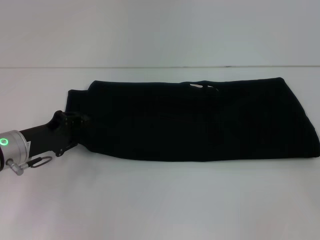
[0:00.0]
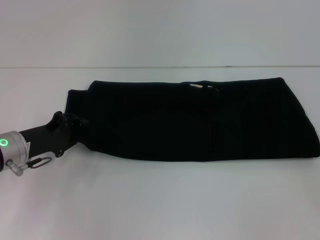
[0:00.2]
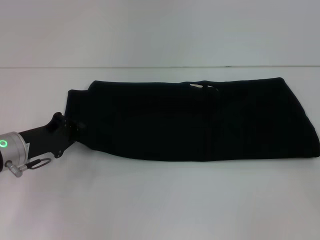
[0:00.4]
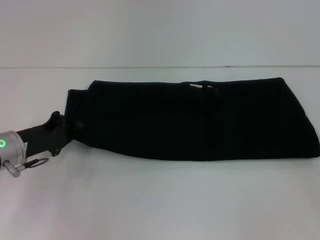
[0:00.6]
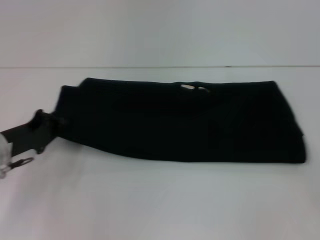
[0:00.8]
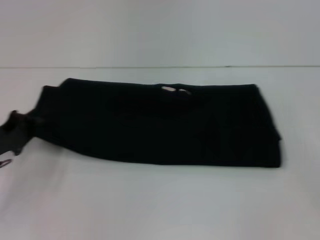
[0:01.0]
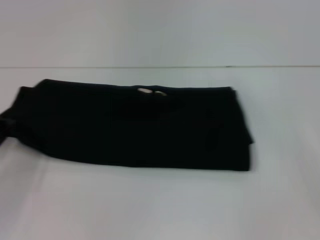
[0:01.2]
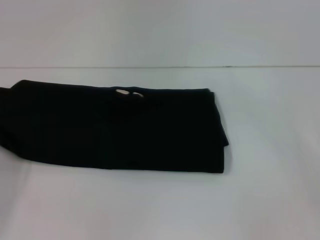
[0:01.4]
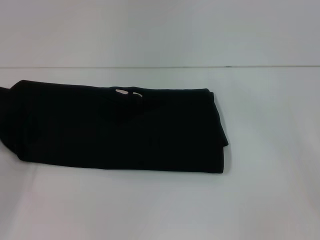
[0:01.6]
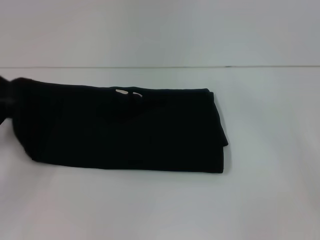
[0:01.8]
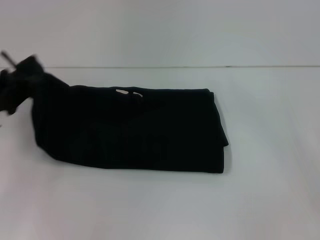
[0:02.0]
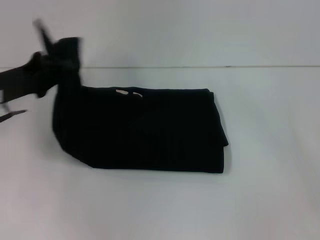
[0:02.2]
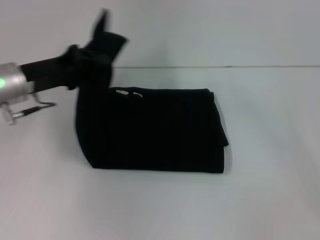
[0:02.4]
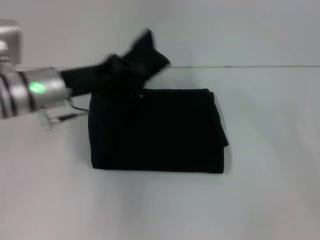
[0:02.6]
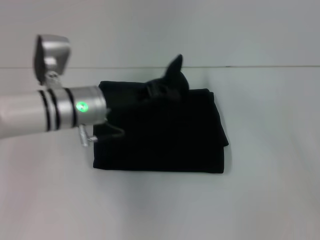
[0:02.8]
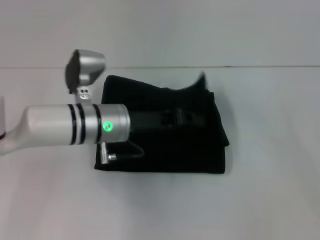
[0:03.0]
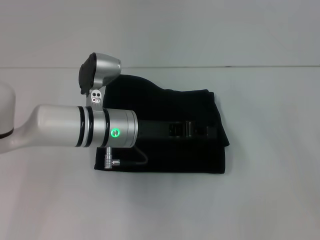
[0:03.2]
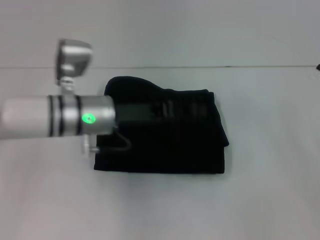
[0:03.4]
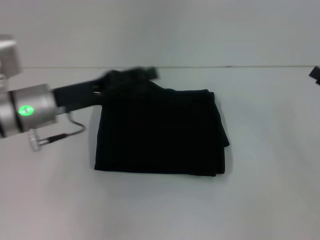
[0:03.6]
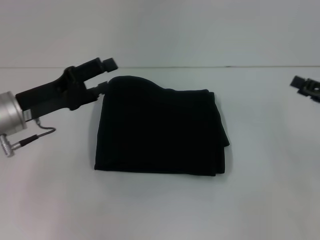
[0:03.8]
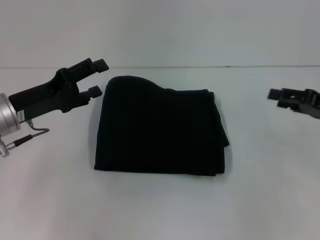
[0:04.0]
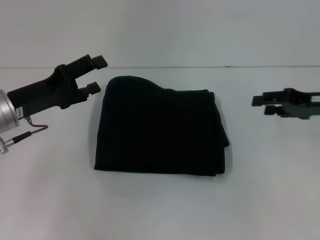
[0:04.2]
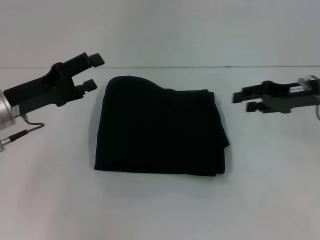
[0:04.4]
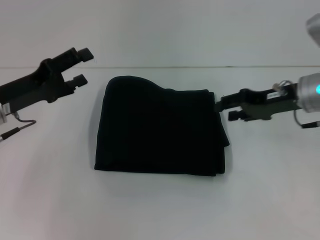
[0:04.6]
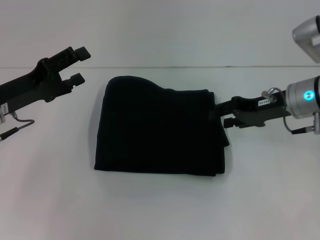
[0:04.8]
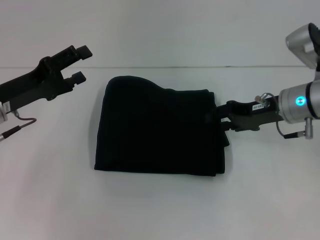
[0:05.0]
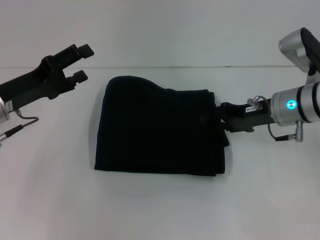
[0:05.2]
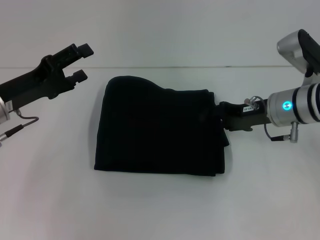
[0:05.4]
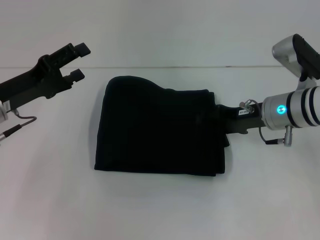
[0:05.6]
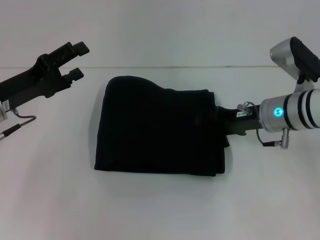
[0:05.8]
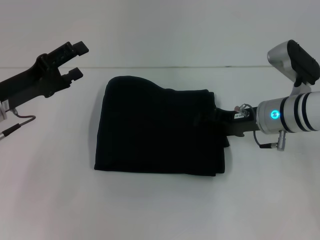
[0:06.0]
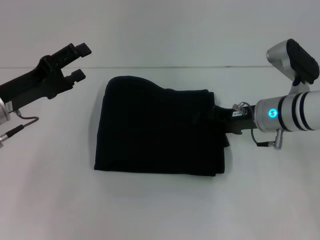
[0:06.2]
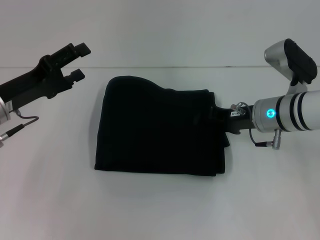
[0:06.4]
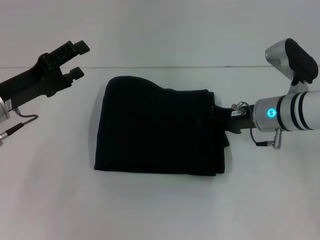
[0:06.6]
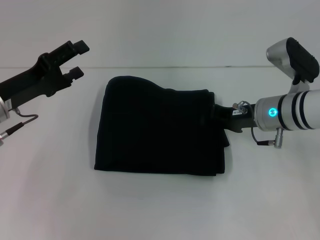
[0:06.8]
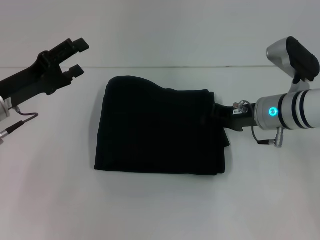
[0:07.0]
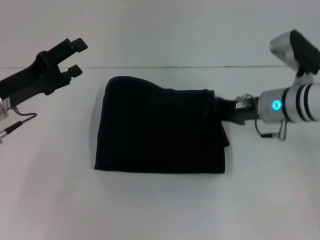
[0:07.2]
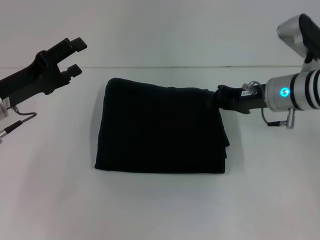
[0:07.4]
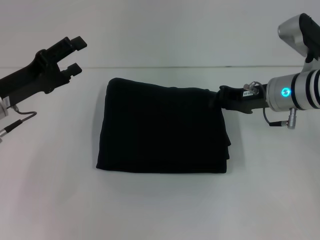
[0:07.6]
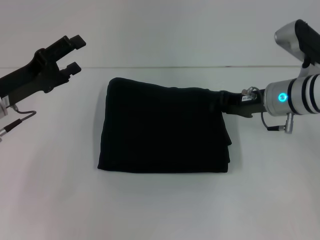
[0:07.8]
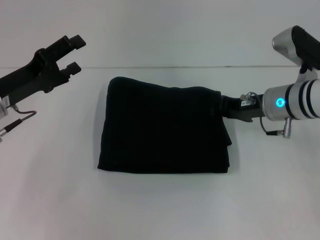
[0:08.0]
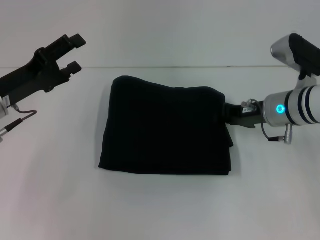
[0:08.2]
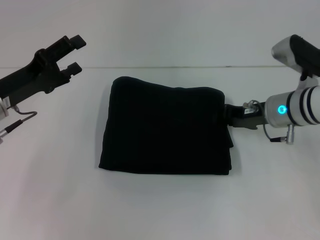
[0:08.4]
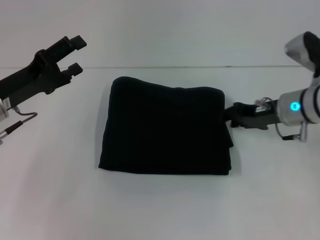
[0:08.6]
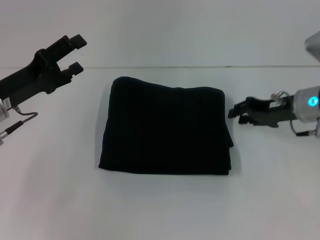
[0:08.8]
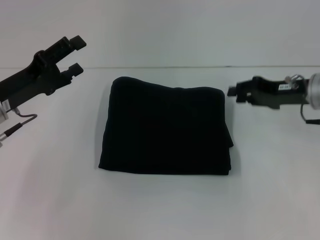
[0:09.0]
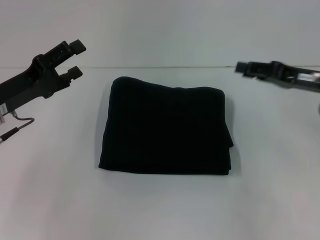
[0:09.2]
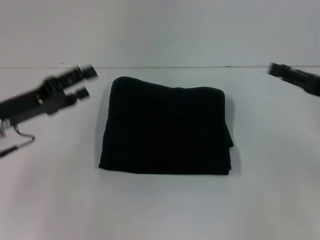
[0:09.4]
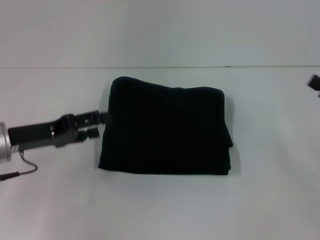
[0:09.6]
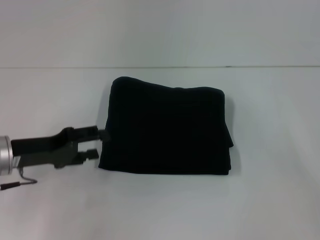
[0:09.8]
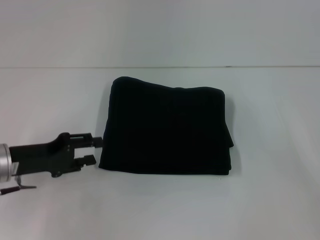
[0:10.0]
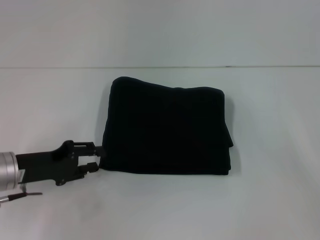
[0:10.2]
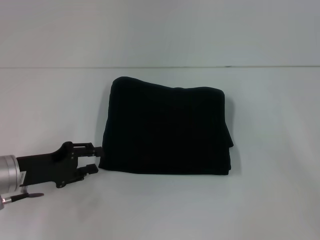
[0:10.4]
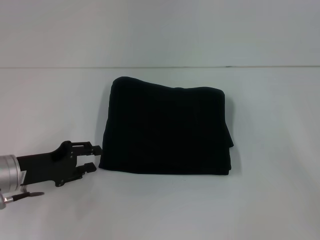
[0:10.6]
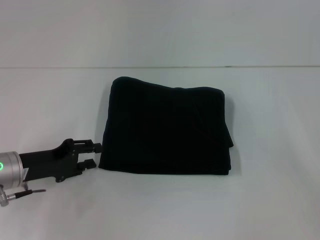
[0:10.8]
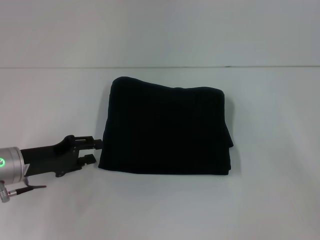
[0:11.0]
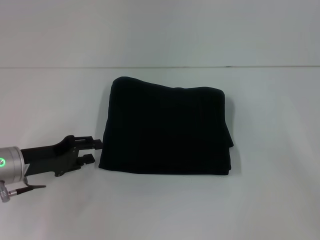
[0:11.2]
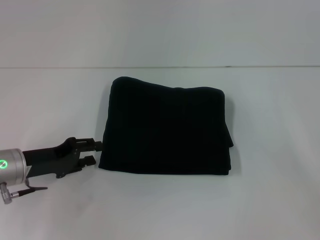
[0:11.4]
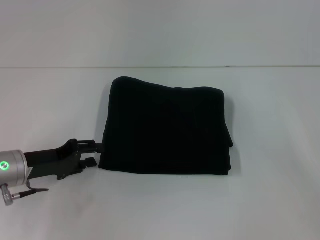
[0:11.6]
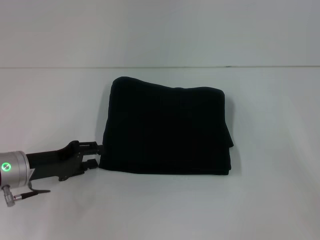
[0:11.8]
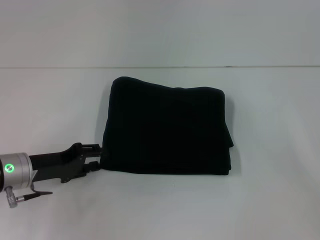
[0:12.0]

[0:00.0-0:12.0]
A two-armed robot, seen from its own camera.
Step, 0:00.0 to 0:03.2: Fold the clothes with your left hand.
0:00.0 to 0:01.6: The left gripper goes roughly 10 cm to the left, and closes up.
0:01.6 to 0:03.0: The left gripper shifts approximately 25 cm to the right.
0:03.0 to 0:04.4: The right gripper heads to the left and forward, covering about 15 cm, while the left gripper travels to the left by roughly 15 cm, and opens up.
0:04.4 to 0:06.0: The right gripper moves to the left and downward, approximately 10 cm.
0:06.0 to 0:07.6: The right gripper closes.
0:07.6 to 0:09.0: The right gripper goes approximately 5 cm to the right, and opens up.
0:09.0 to 0:10.4: The left gripper heads downward, covering approximately 5 cm, and closes up. The right gripper heads backward and to the right, covering about 15 cm, and opens up.
0:10.4 to 0:12.0: The grippers make only small movements.

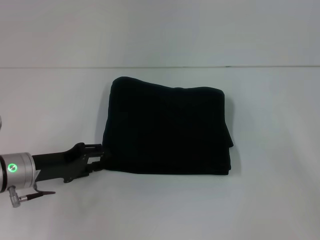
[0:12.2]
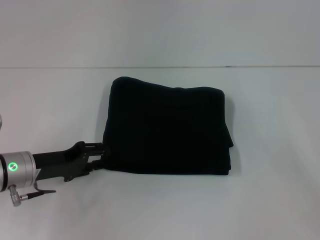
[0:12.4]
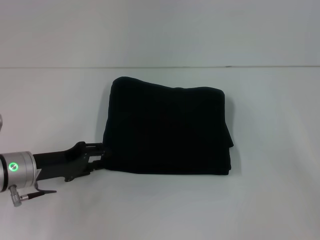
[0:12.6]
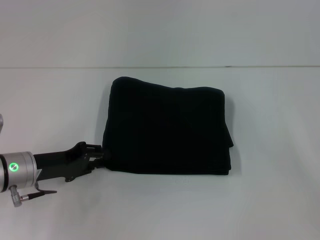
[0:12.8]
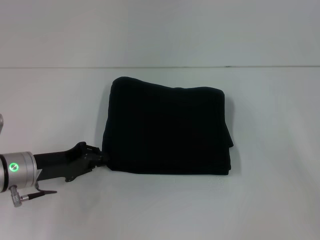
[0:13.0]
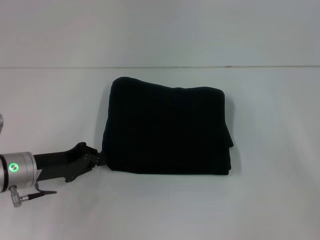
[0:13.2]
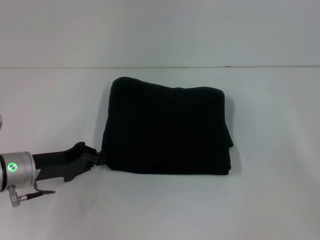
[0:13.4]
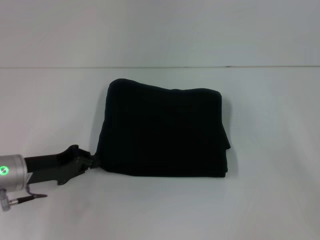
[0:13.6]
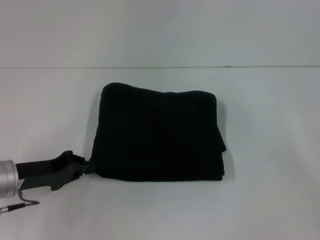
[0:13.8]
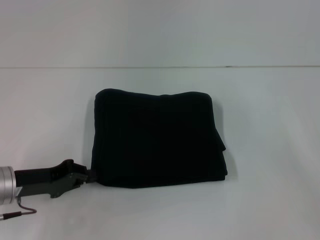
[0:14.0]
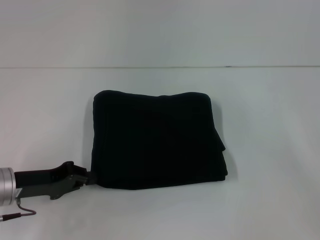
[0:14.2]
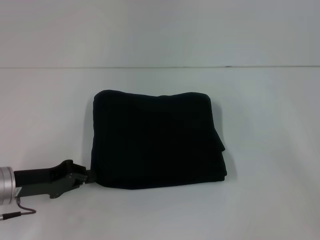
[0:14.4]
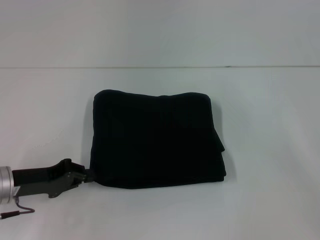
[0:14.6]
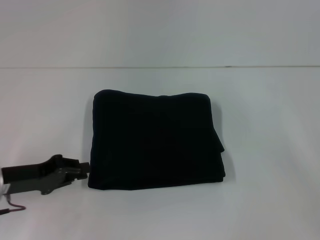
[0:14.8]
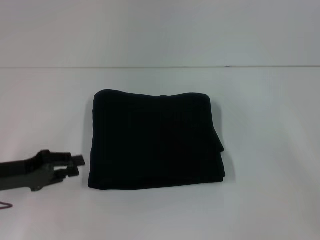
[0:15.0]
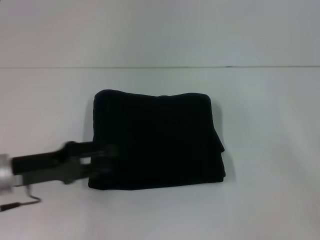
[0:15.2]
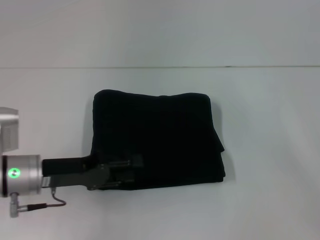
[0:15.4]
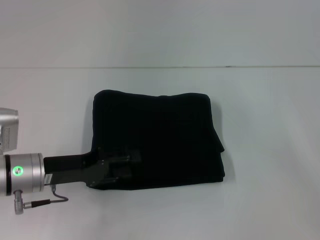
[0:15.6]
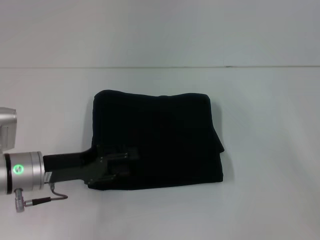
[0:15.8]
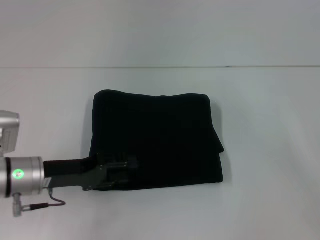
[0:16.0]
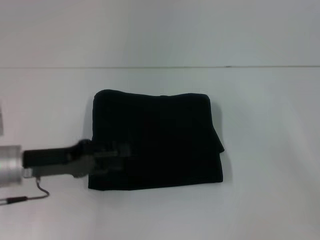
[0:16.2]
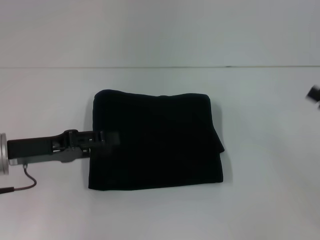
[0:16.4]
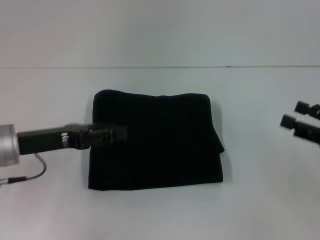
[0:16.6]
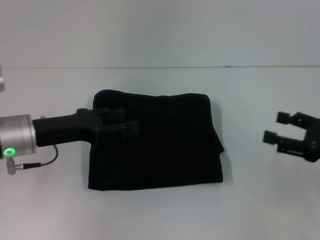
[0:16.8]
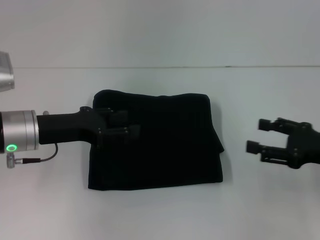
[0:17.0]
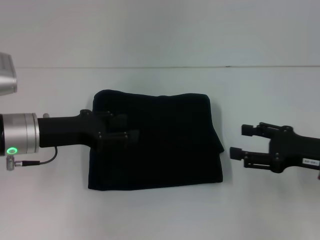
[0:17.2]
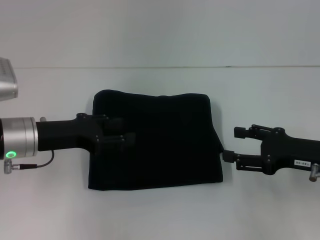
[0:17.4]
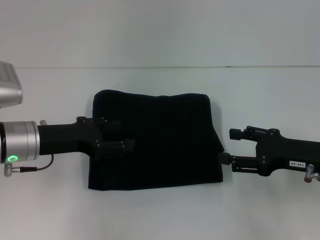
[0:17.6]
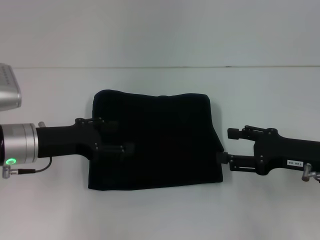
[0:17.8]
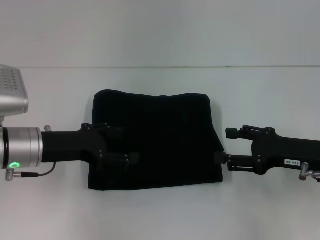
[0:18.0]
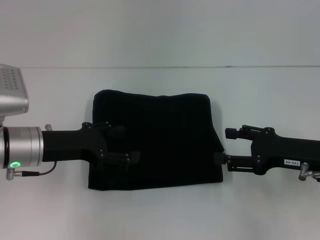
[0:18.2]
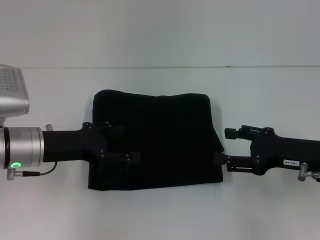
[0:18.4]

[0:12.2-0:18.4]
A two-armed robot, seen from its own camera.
0:12.2 to 0:13.8: The left gripper closes its fingers.
0:13.8 to 0:15.4: The left gripper opens.
0:16.8 to 0:18.4: The right gripper travels to the left by roughly 5 cm.

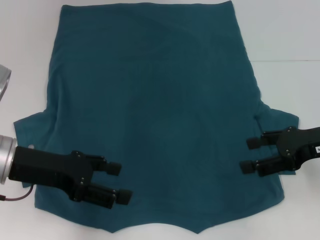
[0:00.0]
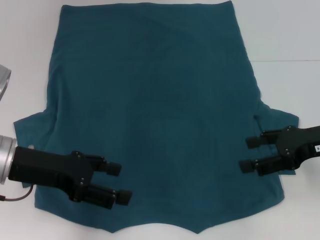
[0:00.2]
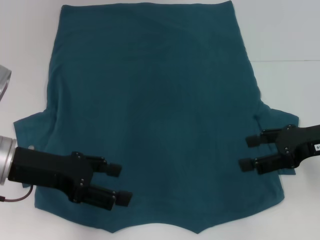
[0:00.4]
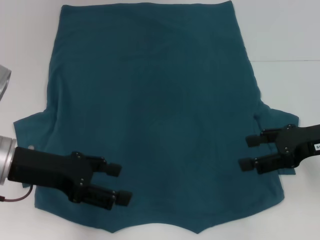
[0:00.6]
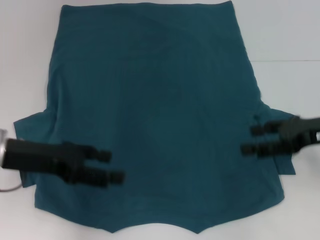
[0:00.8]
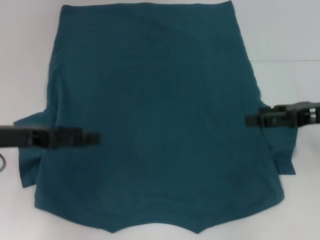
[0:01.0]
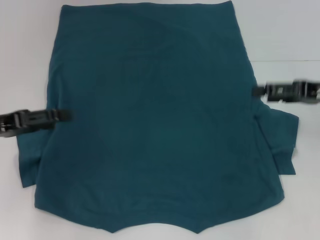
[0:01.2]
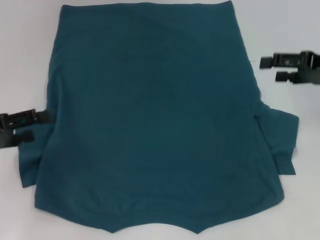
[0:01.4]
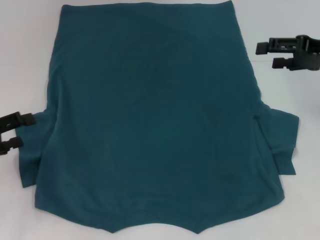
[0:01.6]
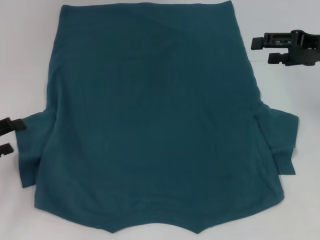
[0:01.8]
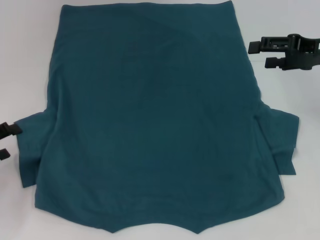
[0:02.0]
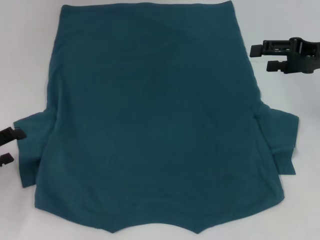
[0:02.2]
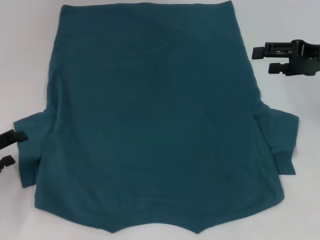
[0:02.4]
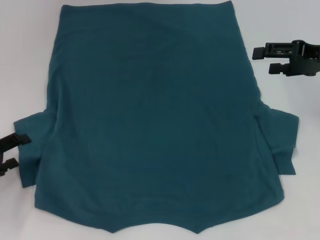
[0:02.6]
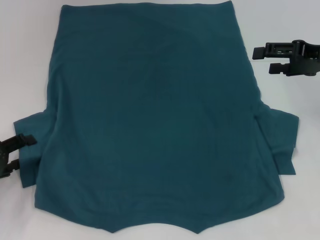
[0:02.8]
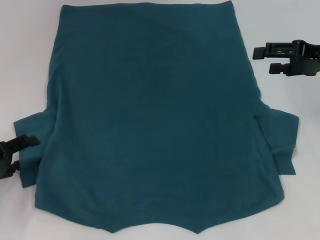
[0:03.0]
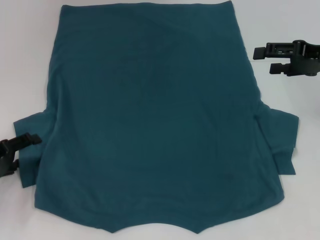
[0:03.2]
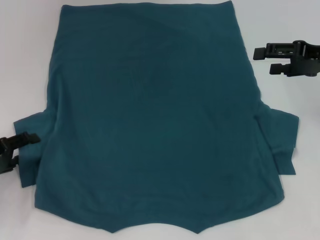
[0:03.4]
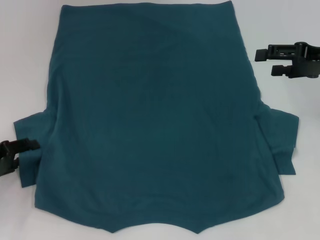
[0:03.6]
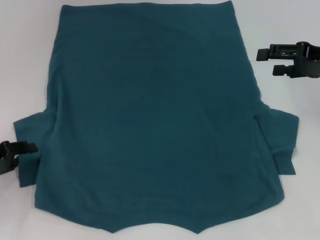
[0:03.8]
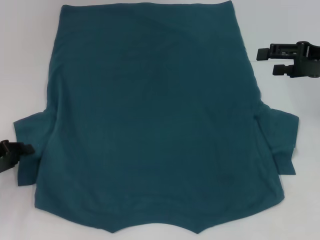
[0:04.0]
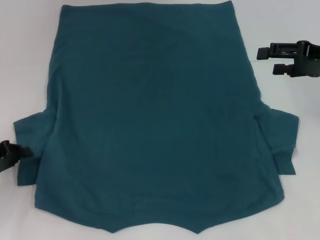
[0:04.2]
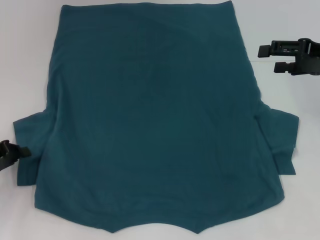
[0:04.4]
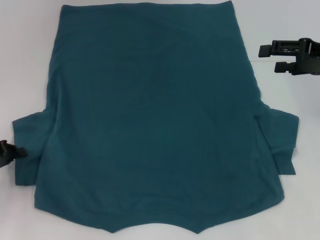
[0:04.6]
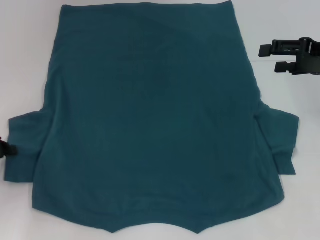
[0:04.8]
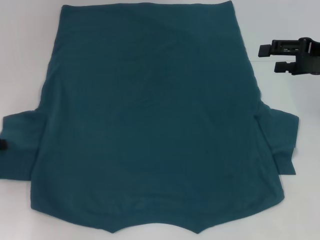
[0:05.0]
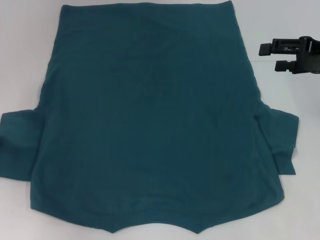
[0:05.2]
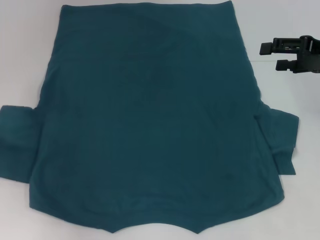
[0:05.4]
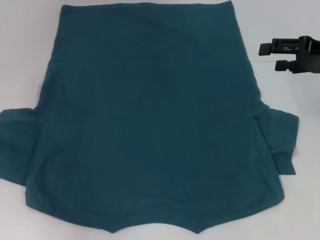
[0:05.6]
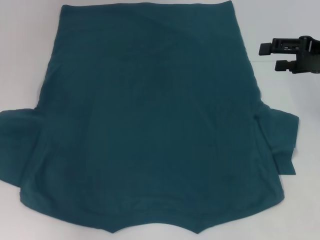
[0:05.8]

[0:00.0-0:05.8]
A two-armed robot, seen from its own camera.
0:00.0 to 0:01.4: The left gripper shifts roughly 10 cm to the left; the right gripper is displaced forward by about 5 cm.
0:01.4 to 0:02.8: The left gripper shifts about 10 cm downward.
0:02.8 to 0:04.4: The left gripper closes its fingers.
0:04.4 to 0:05.8: The left gripper moves upward and forward, roughly 10 cm.
